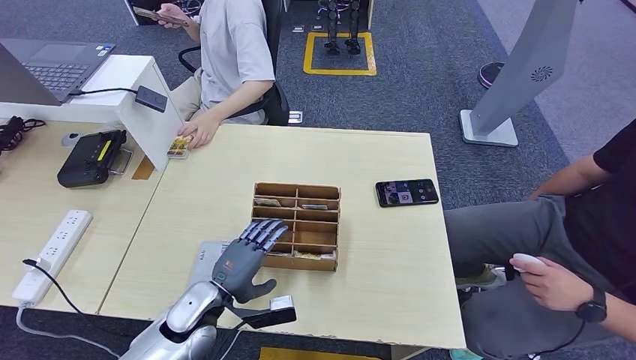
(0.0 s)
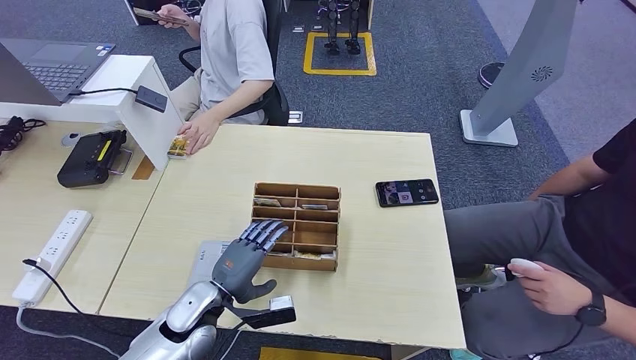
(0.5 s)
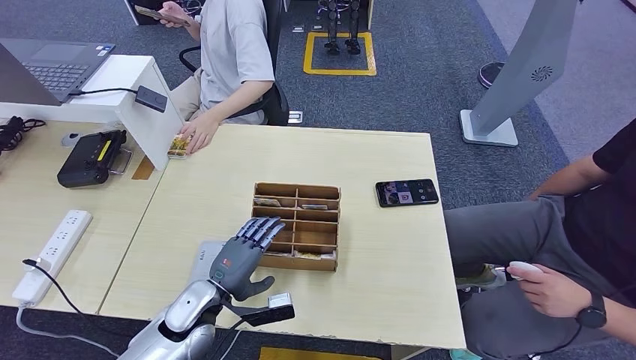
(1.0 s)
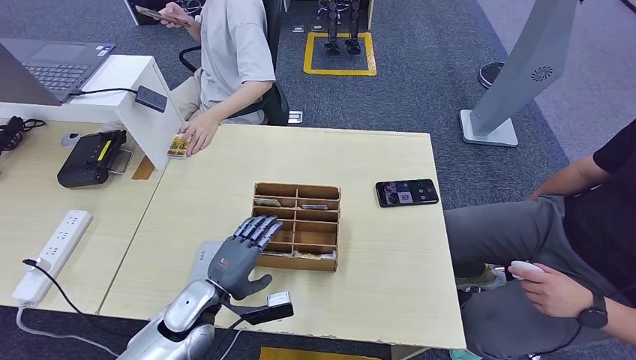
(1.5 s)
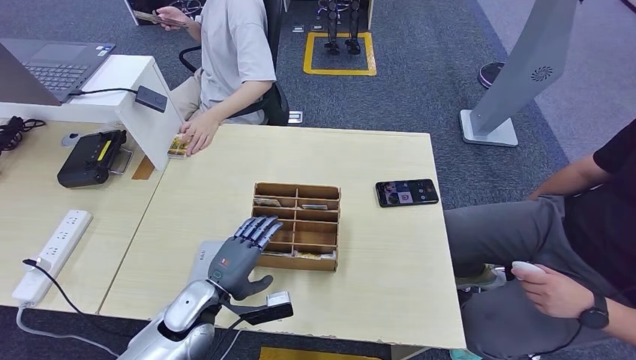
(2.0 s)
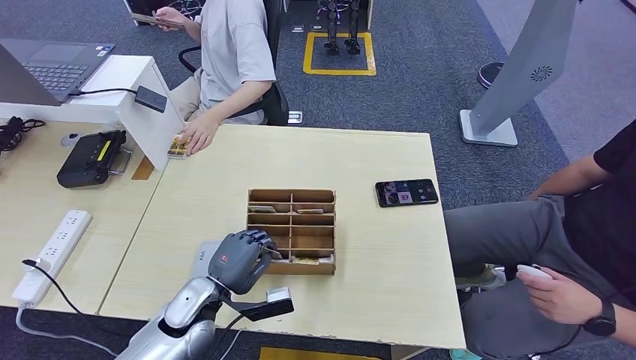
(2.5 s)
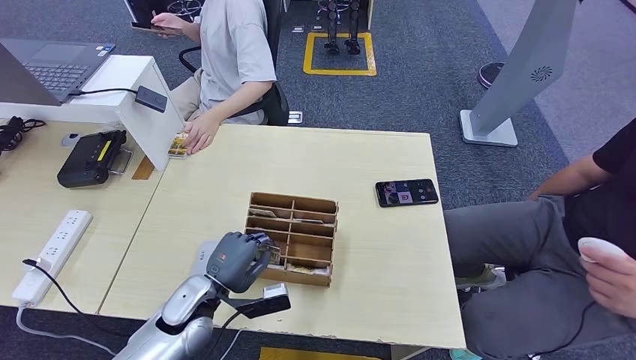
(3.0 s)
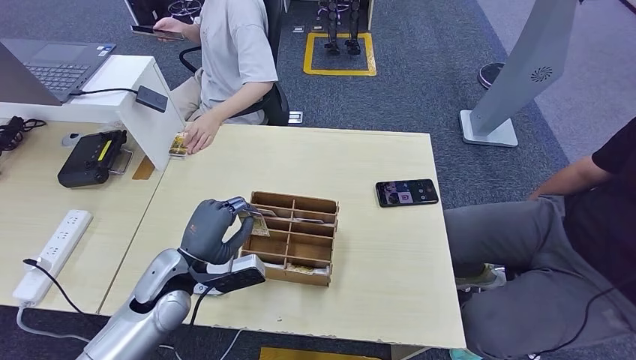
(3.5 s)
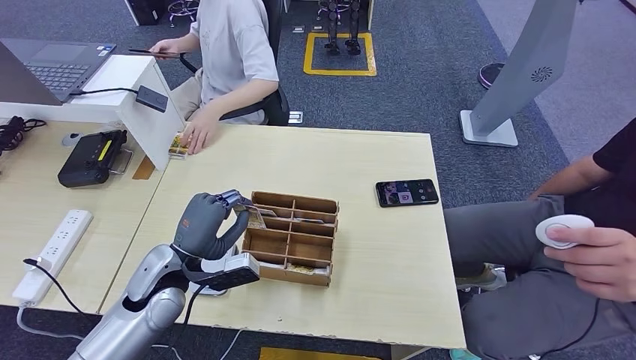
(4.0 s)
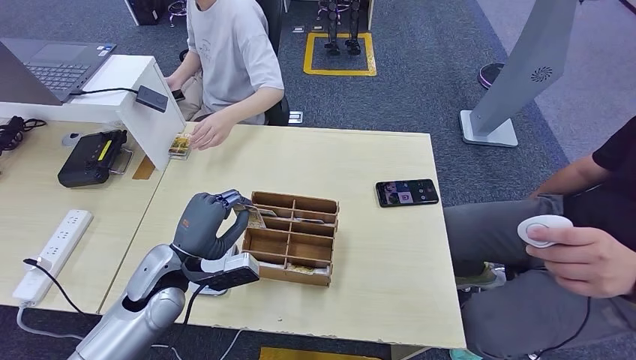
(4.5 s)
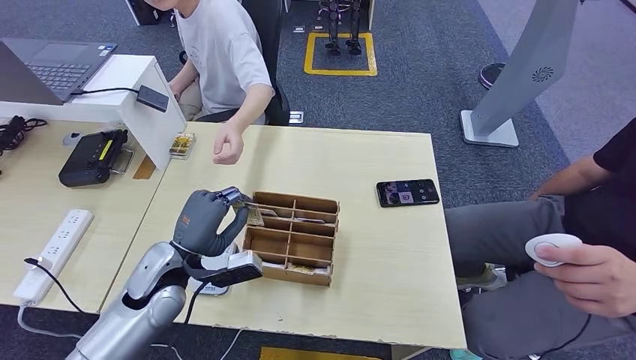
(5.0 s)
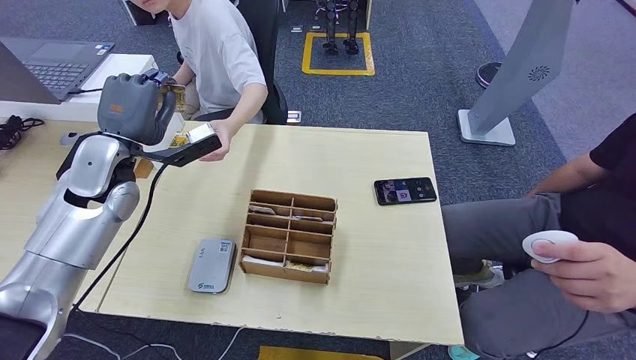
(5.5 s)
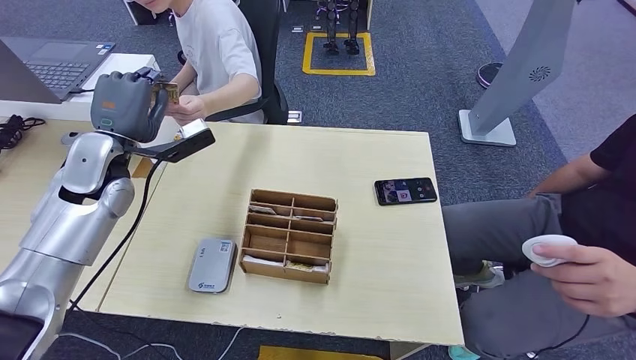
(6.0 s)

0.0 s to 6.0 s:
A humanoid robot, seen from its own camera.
Step, 0.0 to 4.0 s: Pick up the room key from the key card box.
Step, 4.5 to 6.0 s: Hand the room key to the person.
0.0 to 2.0 s: Both hands stay put.
2.0 to 4.0 s: The left hand shifts some 10 cm upward.
